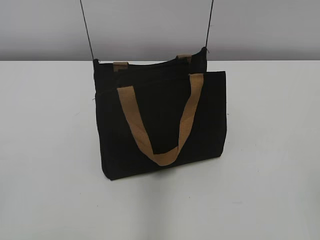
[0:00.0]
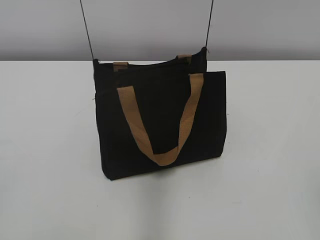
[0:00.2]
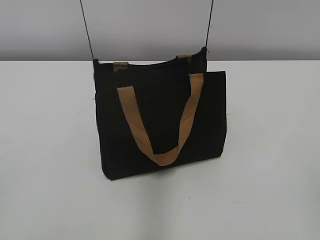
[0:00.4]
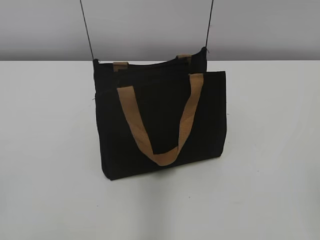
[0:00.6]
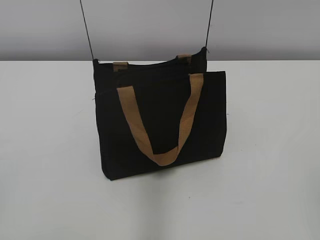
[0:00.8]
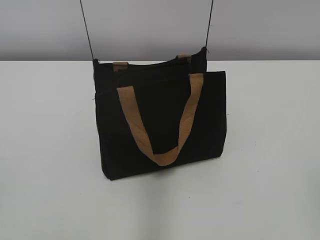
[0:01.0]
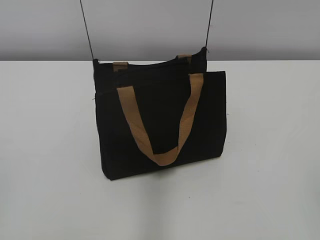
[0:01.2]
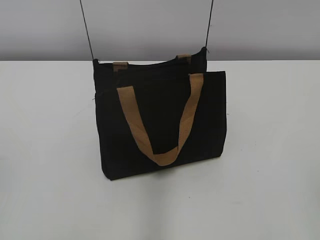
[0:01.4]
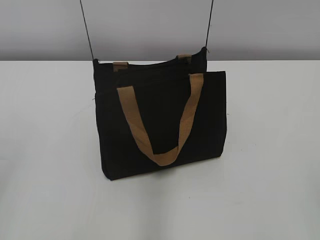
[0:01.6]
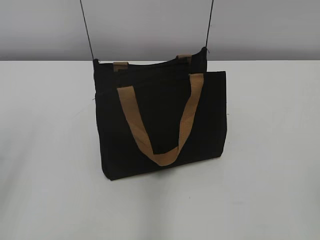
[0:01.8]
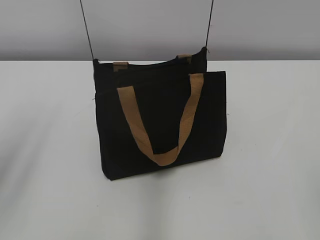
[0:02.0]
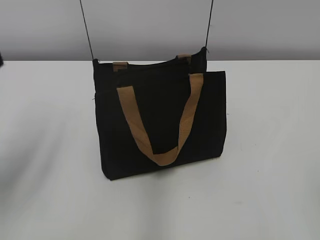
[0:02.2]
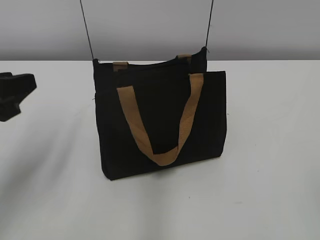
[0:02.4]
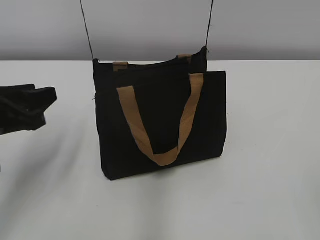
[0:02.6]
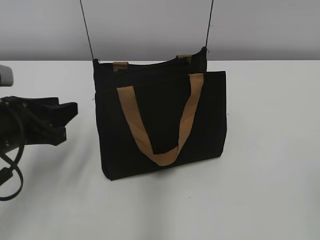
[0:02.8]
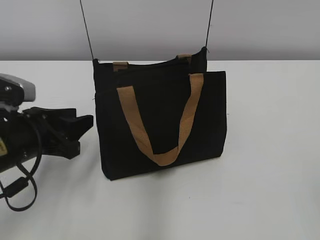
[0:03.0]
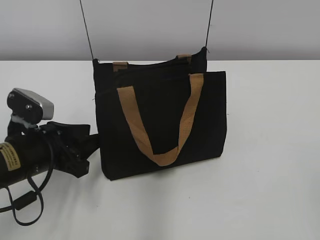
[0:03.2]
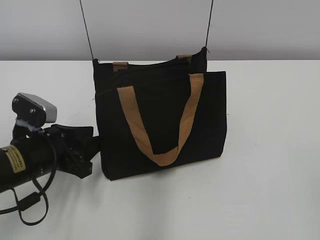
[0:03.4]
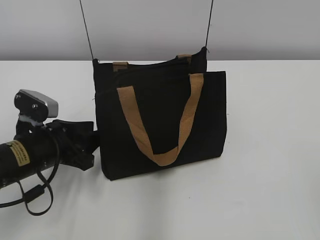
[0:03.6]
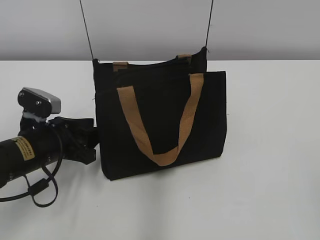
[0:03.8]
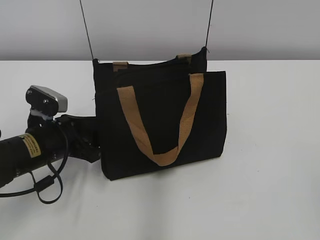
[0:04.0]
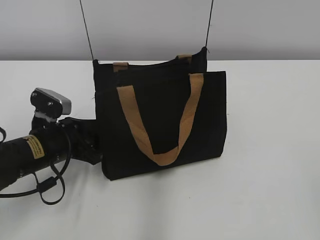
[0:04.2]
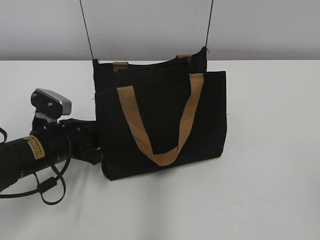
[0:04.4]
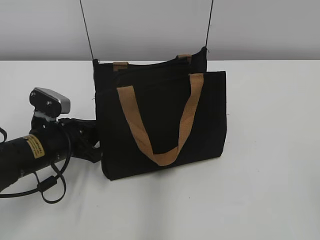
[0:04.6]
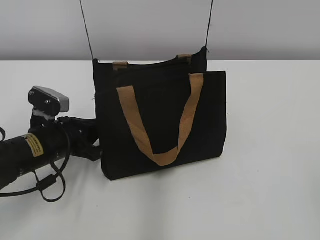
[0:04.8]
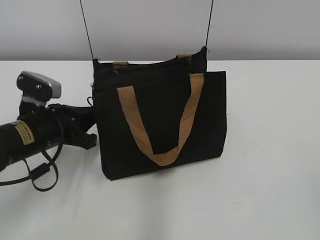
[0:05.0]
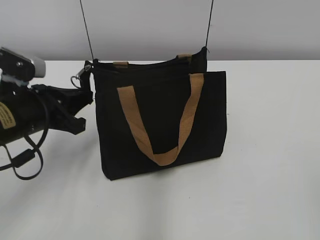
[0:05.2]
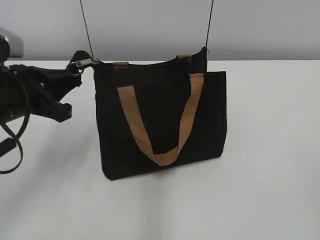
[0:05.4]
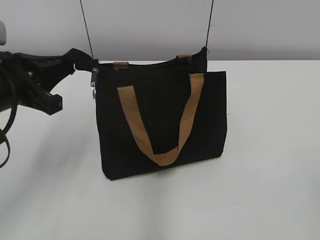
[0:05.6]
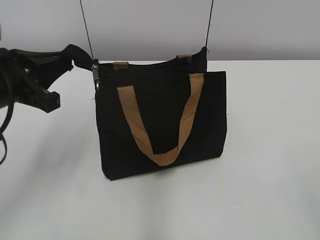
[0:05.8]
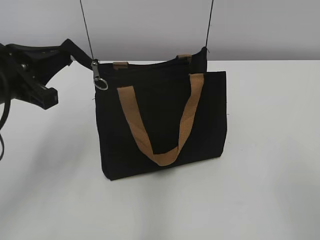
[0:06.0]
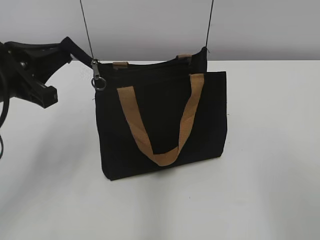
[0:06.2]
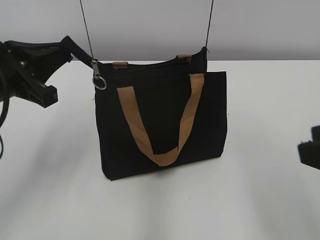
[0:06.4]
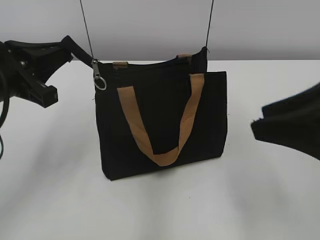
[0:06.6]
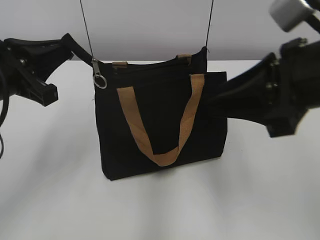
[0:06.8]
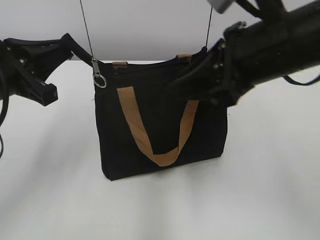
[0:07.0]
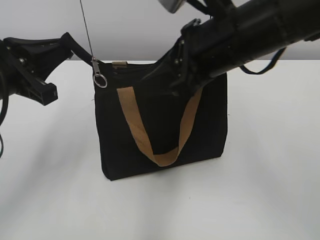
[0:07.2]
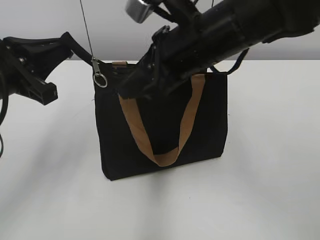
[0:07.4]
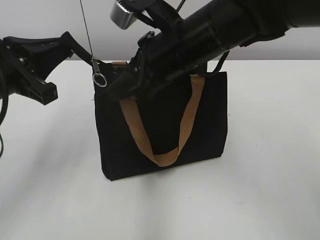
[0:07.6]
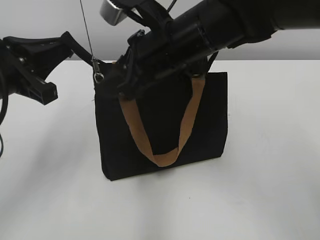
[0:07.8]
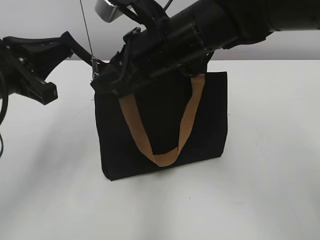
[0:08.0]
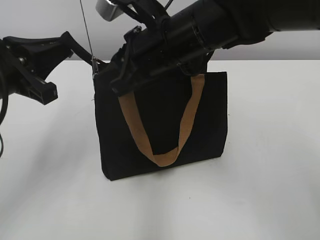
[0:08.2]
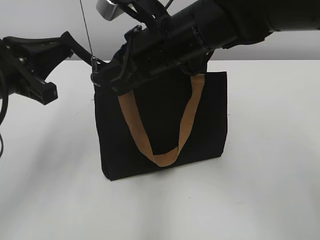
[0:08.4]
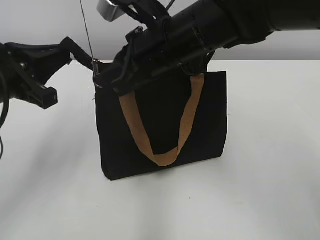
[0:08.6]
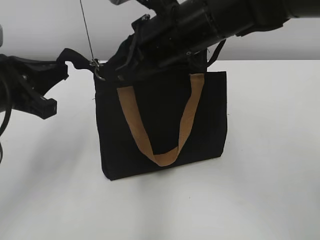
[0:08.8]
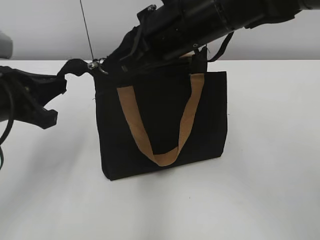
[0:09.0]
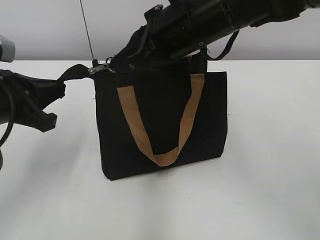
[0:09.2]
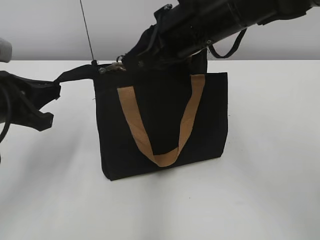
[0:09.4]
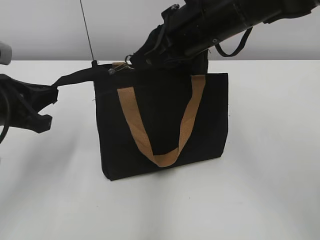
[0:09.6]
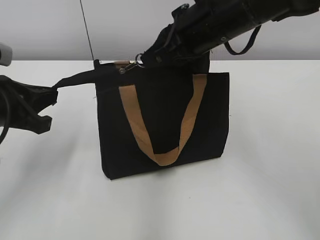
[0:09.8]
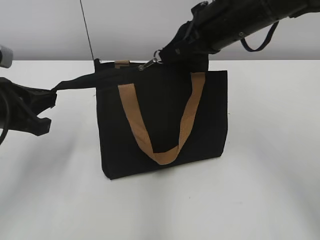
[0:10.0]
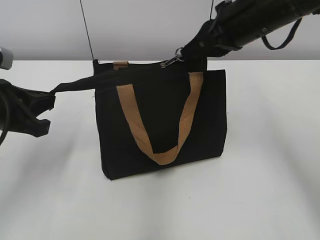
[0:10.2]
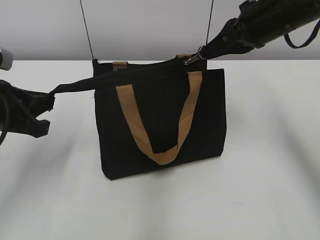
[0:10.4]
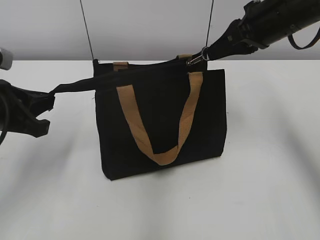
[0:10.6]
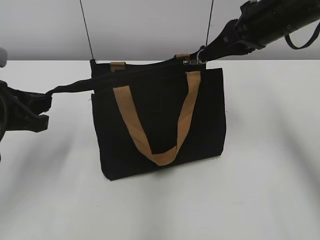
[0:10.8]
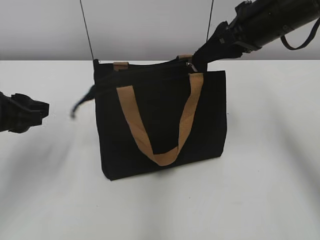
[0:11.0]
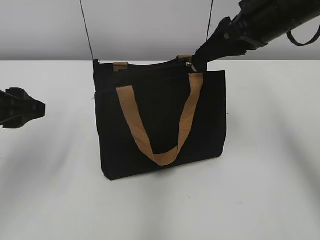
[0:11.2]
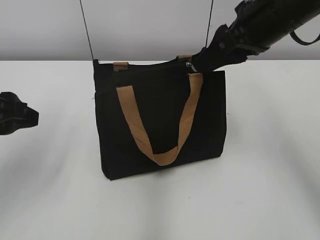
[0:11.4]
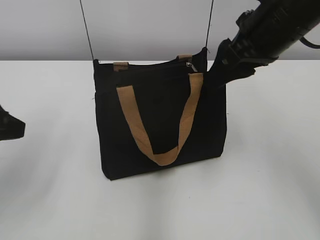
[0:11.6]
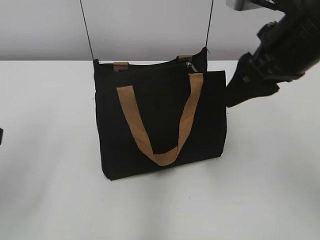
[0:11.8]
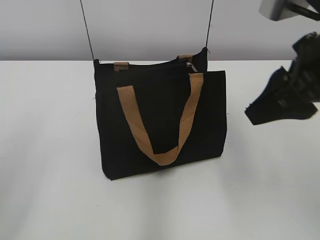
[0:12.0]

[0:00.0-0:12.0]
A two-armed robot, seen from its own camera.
Step, 0:00.0 to 0:10.8: Grab the zipper with your left hand.
Step, 0:11.0 to 0:11.4: Zip up the bag with your right hand.
0:01.6 to 0:03.0: The left gripper heads forward, downward and to the right, covering some 25 cm.
0:03.0 to 0:04.4: The left gripper goes about 5 cm downward.
0:04.4 to 0:06.0: The left gripper moves upward, approximately 15 cm, and closes its fingers.
0:06.0 to 0:07.6: The right gripper moves forward and to the left, some 35 cm.
0:07.6 to 0:09.0: The right gripper closes up.
0:09.0 to 0:10.4: The right gripper goes approximately 15 cm to the right and forward.
0:10.4 to 0:12.0: The left gripper is displaced backward and upward by some 10 cm, and opens up, while the right gripper goes roughly 10 cm backward, and opens its fingers.

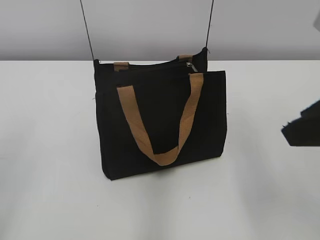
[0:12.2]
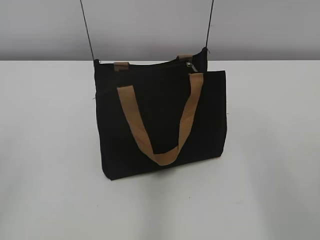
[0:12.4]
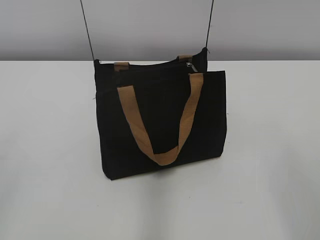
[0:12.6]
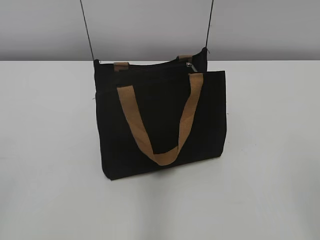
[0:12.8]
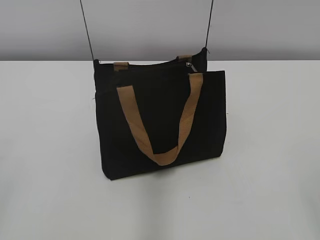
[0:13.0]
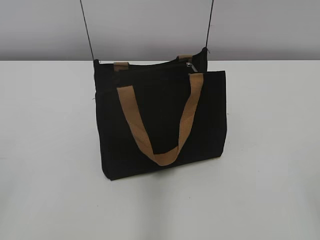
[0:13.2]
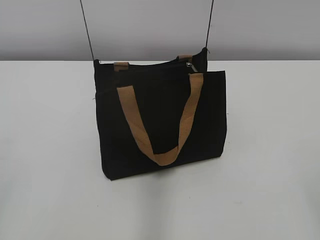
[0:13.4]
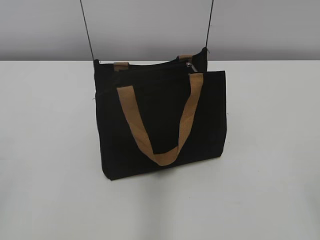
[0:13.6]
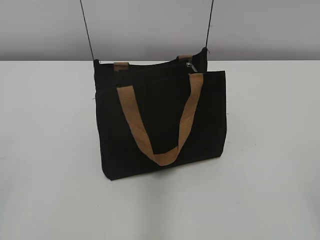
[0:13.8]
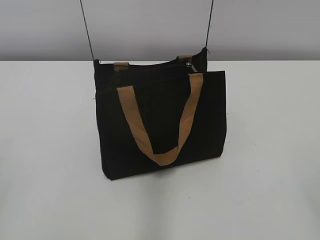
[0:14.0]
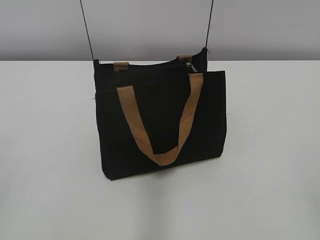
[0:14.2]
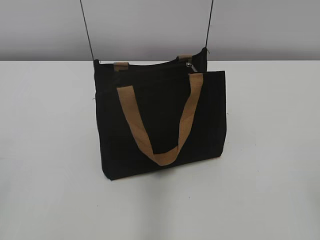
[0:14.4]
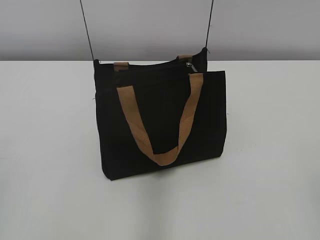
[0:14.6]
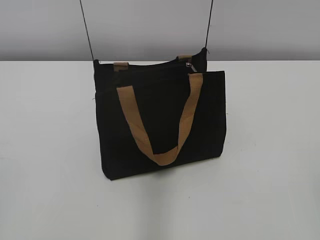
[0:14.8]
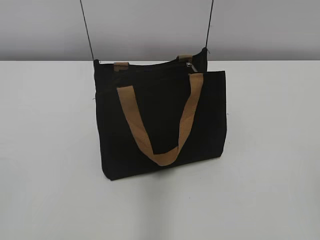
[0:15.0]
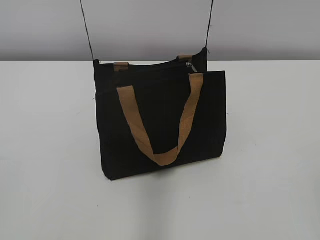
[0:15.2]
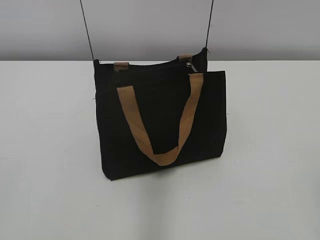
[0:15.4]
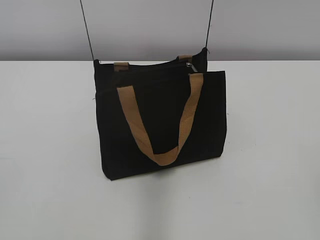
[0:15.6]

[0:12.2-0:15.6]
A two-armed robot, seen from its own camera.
0:12.2 to 0:13.8: The right gripper goes approximately 20 cm backward and to the right.

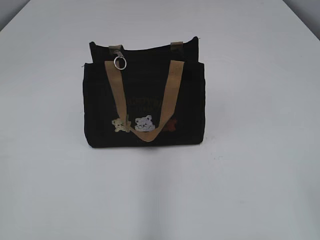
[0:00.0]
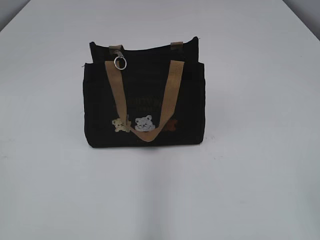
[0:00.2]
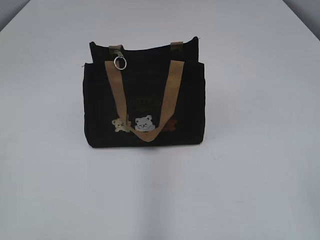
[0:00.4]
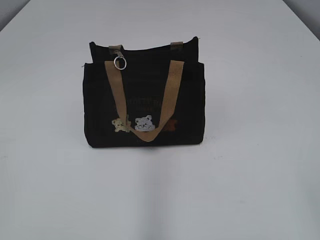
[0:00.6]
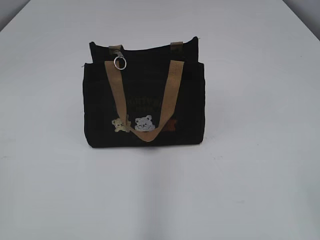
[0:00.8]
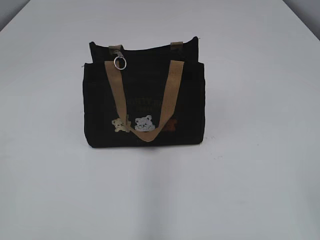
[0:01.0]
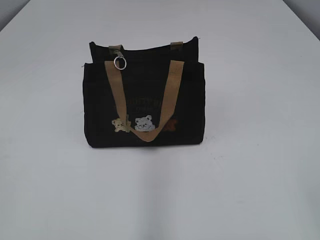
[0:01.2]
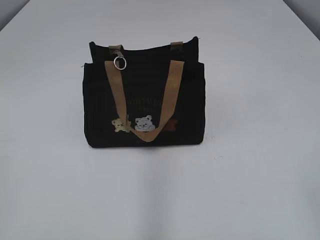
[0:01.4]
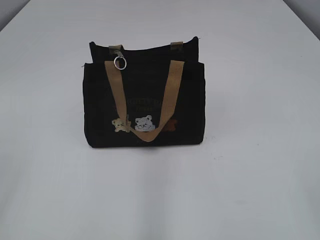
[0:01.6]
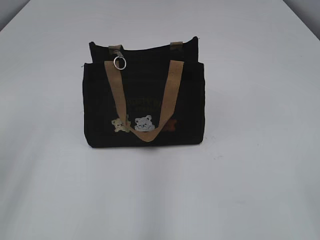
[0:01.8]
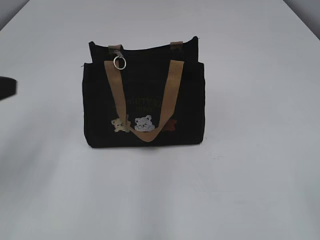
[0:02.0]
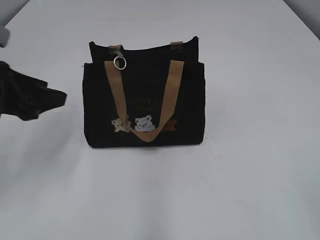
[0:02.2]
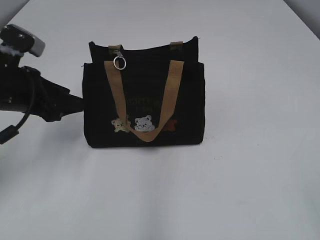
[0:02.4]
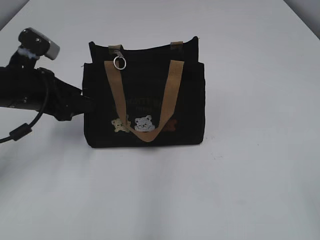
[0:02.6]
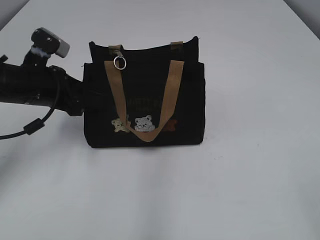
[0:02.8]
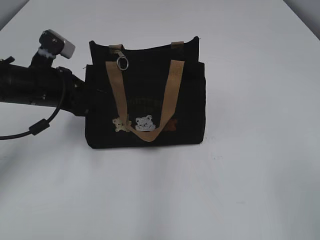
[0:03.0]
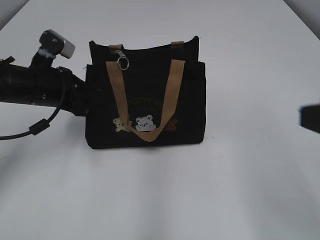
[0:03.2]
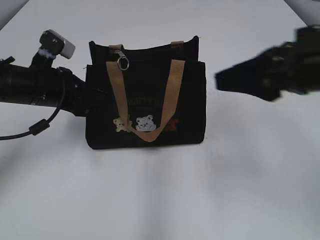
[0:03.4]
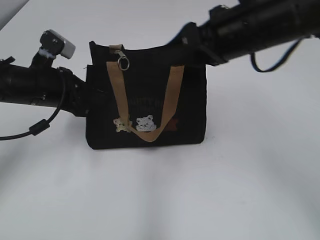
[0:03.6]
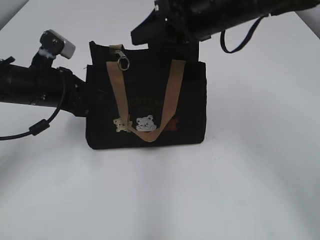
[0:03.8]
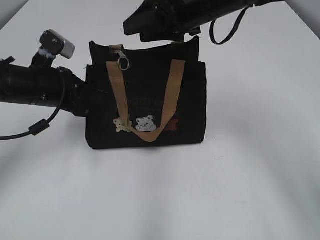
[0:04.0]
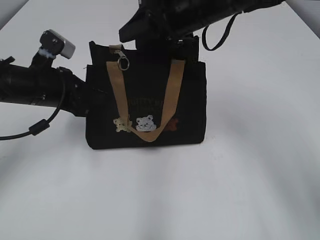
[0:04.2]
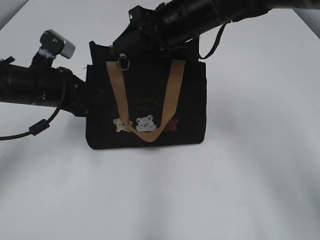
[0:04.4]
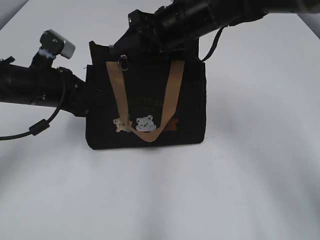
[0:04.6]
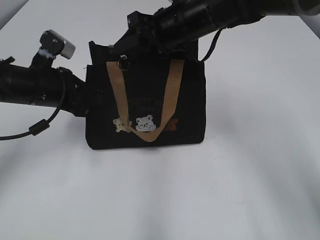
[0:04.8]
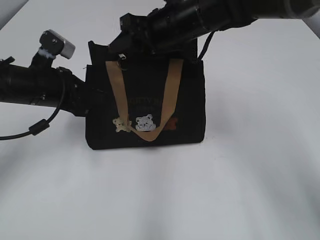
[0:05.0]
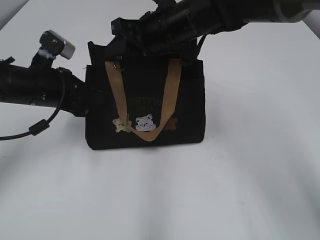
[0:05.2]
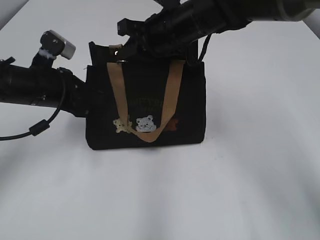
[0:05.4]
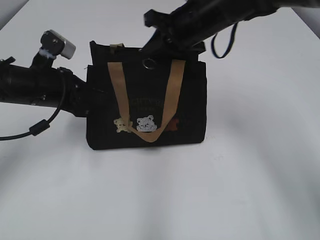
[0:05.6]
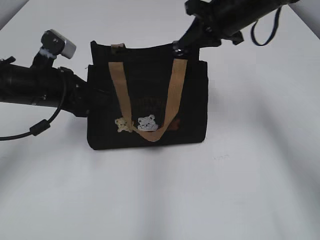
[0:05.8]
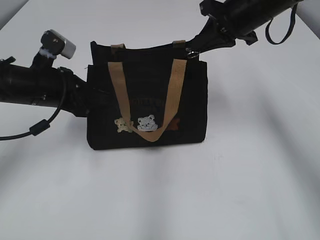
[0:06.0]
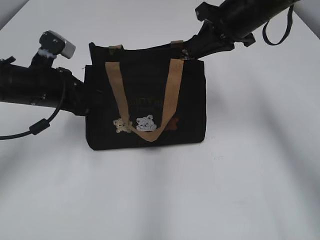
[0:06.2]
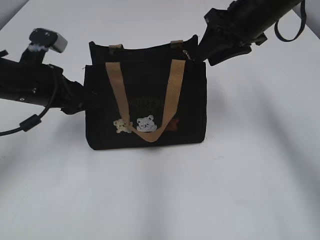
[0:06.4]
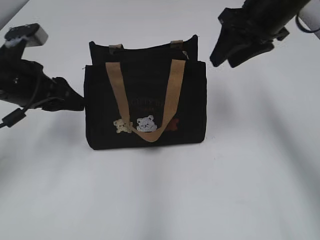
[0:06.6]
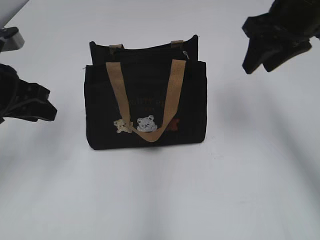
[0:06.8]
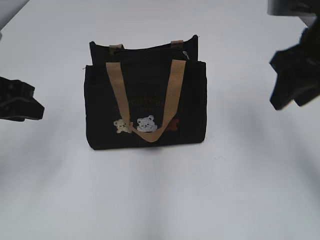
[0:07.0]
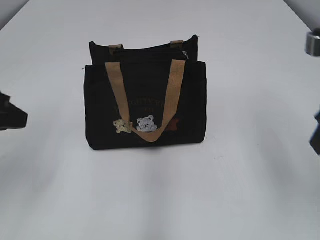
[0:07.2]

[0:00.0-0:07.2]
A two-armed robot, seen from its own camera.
Step, 0:00.0 to 0:06.2: Pull open the zipper with your right hand.
0:01.4 to 0:02.8: The left gripper travels forward by approximately 30 cm, and opens.
0:02.8 to 0:04.4: The left gripper closes. The right gripper travels forward and to the left by roughly 50 cm.
0:04.4 to 0:05.8: The right gripper moves to the right, roughly 10 cm, and closes.
0:05.8 to 0:07.2: The left gripper goes roughly 15 cm backward, upward and to the left, and opens its fingers. The right gripper goes approximately 20 cm backward and to the right, and opens up.
